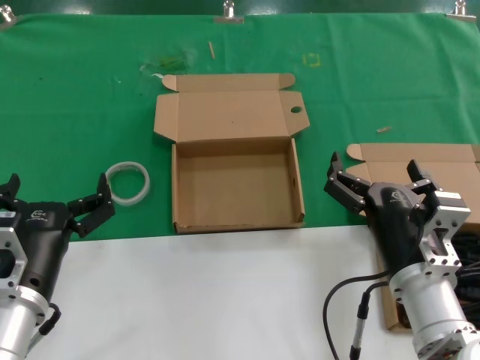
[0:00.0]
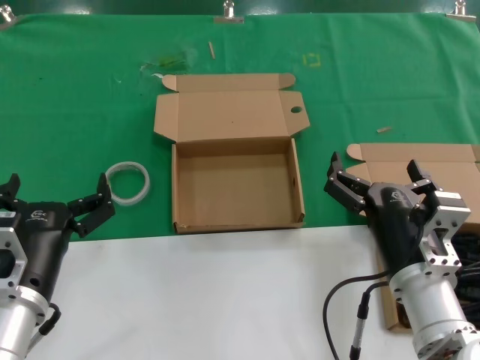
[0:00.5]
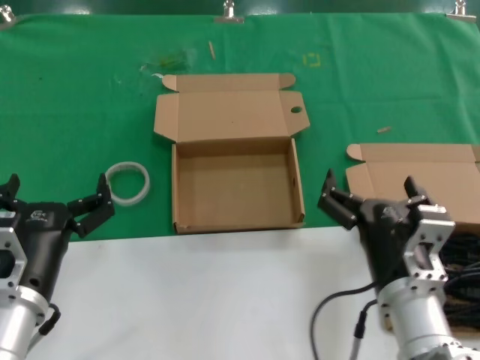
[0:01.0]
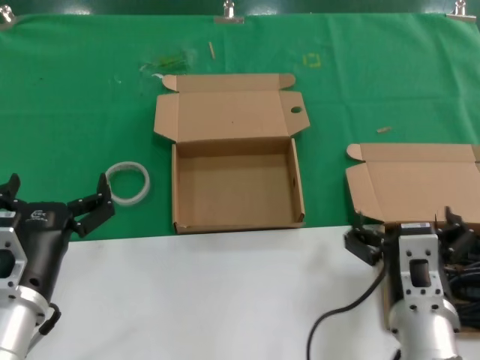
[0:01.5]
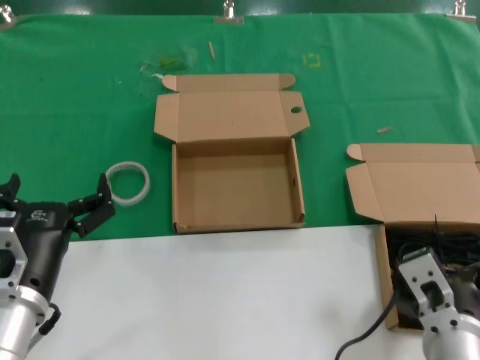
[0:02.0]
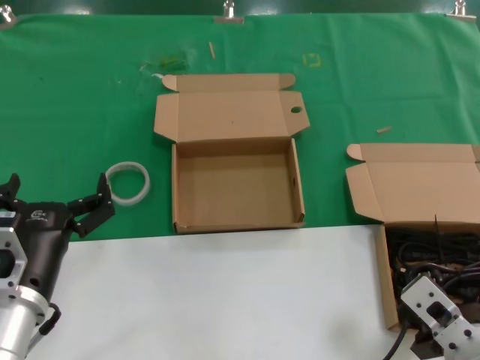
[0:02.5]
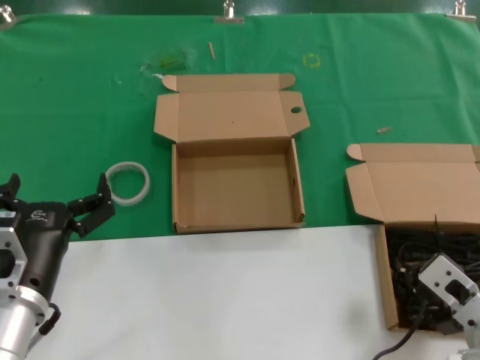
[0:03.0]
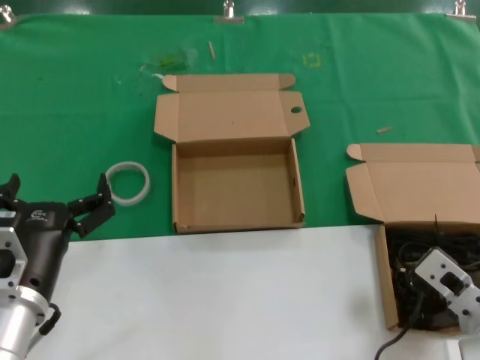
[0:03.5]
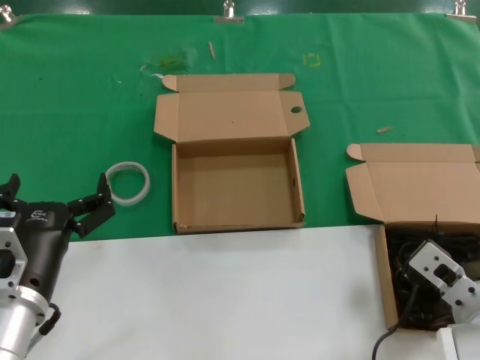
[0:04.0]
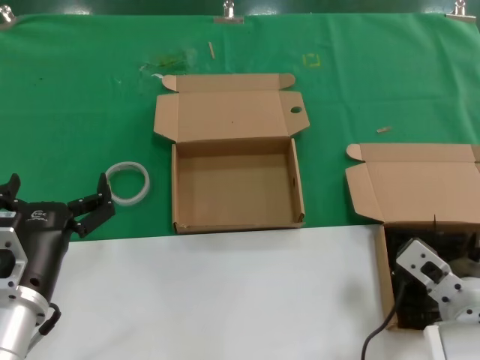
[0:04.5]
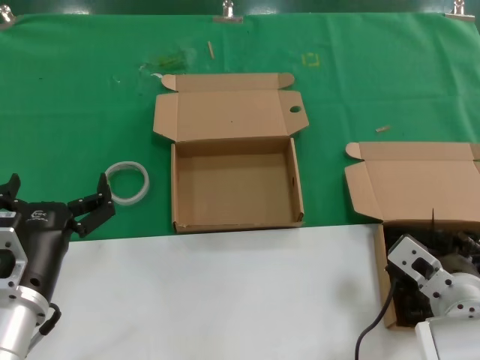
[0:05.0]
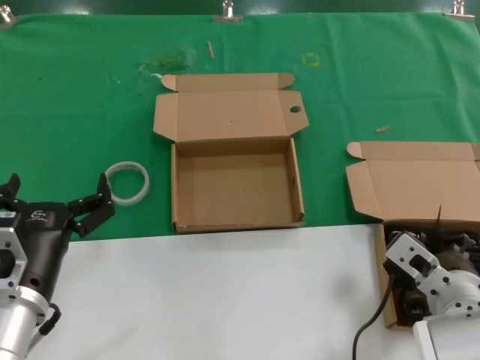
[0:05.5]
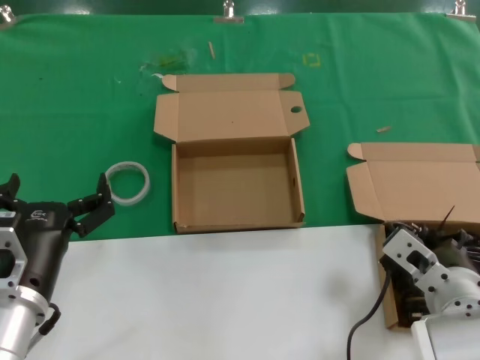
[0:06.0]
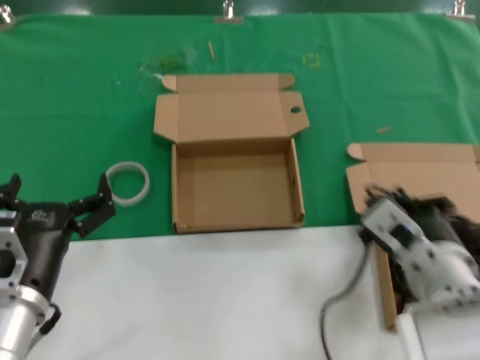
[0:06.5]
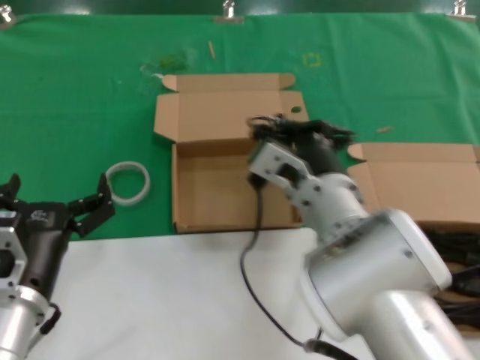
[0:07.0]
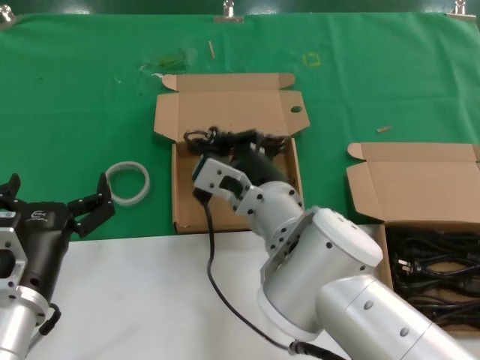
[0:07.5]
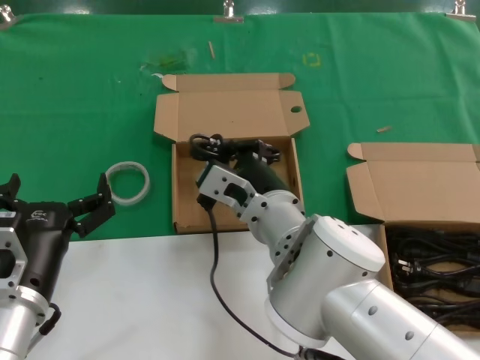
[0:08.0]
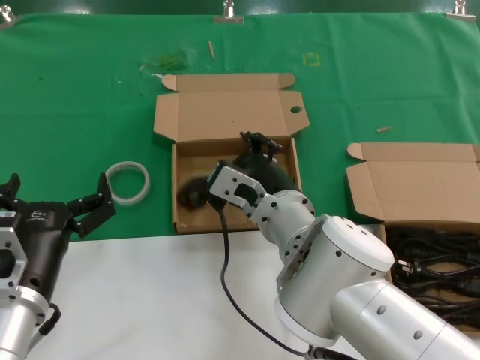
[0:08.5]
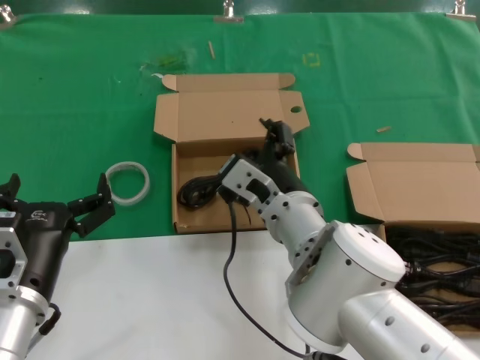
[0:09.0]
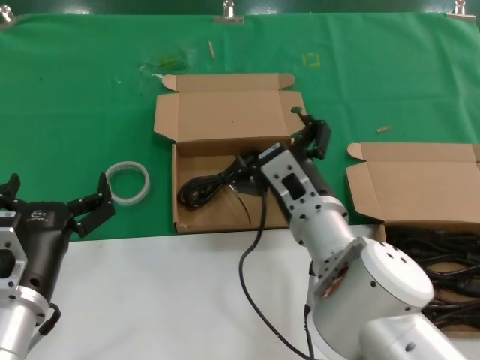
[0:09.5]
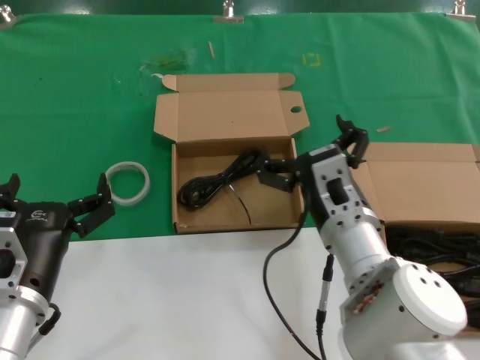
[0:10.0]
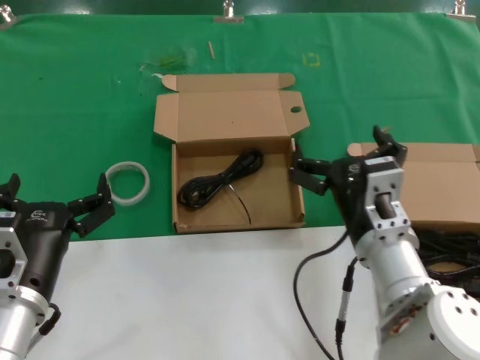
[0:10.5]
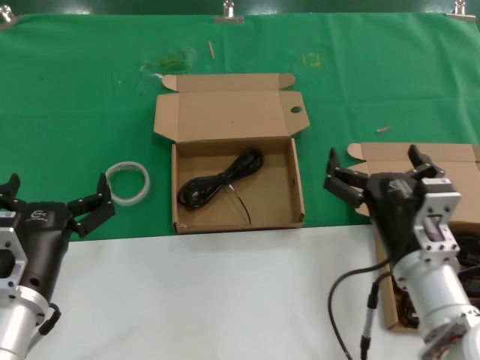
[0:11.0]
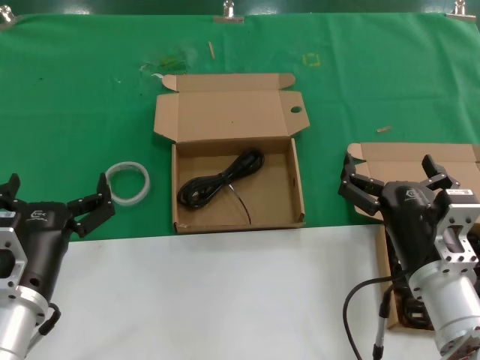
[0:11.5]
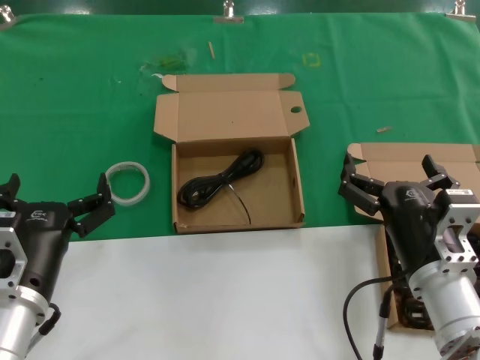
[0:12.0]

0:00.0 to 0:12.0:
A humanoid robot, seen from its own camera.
Task of the whole recording: take the parts from the box containing them and put them into an empty box.
Step, 0:00.0 to 0:06.0: Grasp the data cable.
Step, 0:06.5 to 0:09.5: Place the data cable in the another box.
0:00.0 to 0:02.0: The right hand travels backward by some 5 cm.
0:02.0 to 0:04.0: The right hand travels to the right and forward by some 10 cm.
0:04.0 to 0:06.0: The hands move only a little.
0:06.0 to 0:08.0: The right hand goes some 20 cm to the left and forward.
0:08.0 to 0:10.0: The right hand is displaced to the right by some 10 cm.
0:10.0 to 0:12.0: The right hand shifts about 10 cm to the right and backward.

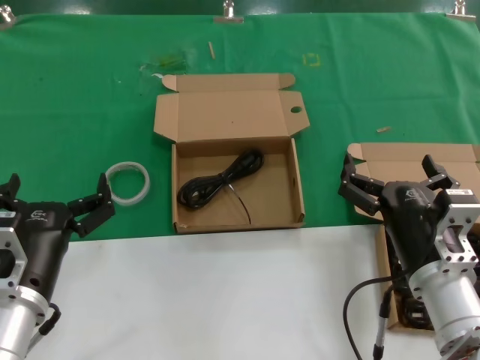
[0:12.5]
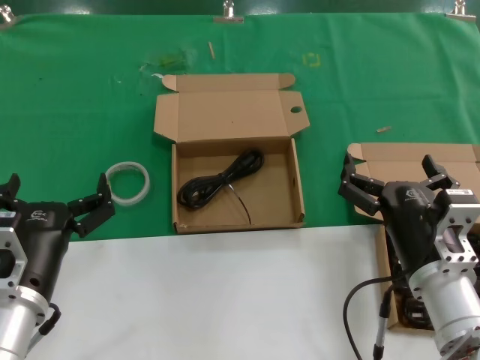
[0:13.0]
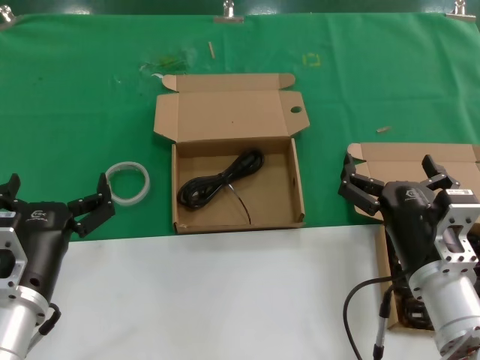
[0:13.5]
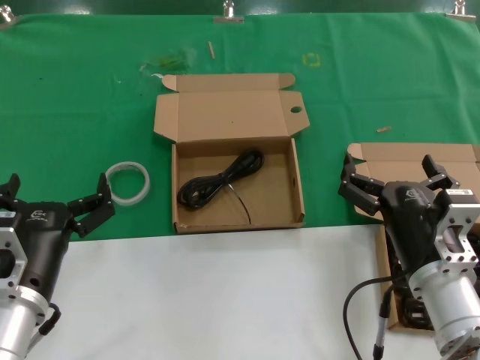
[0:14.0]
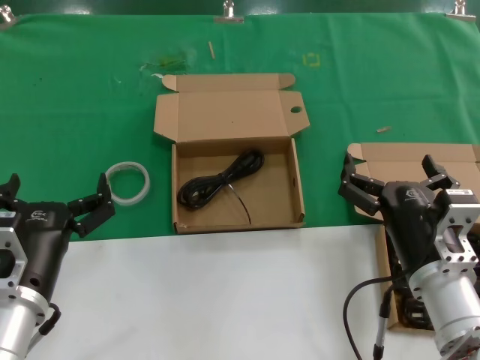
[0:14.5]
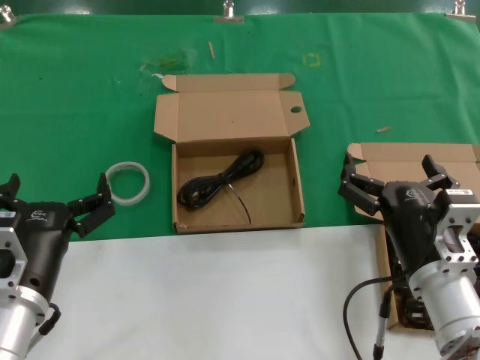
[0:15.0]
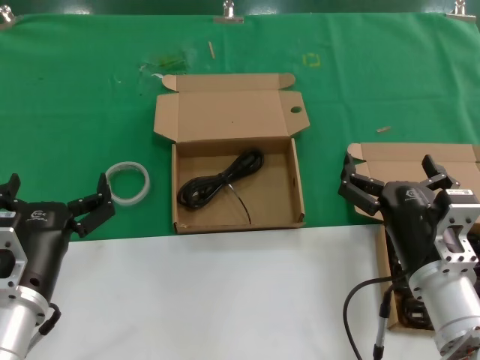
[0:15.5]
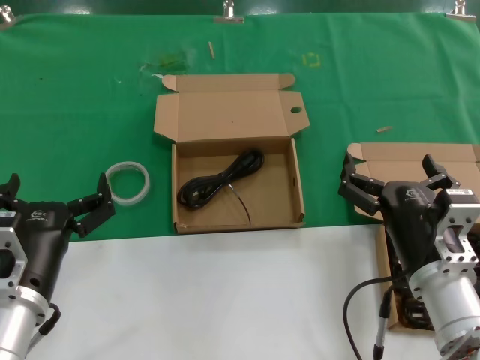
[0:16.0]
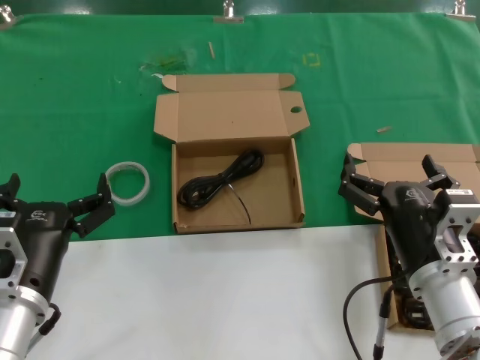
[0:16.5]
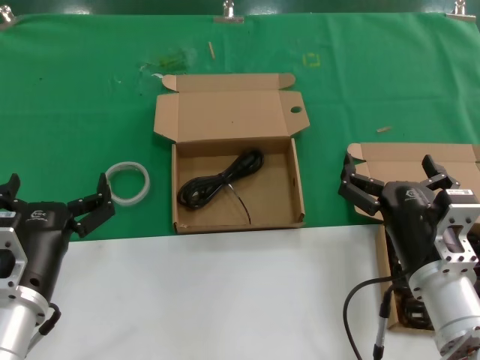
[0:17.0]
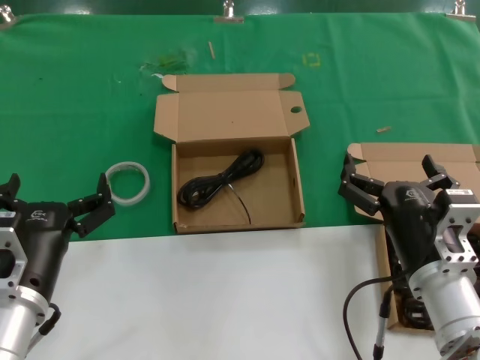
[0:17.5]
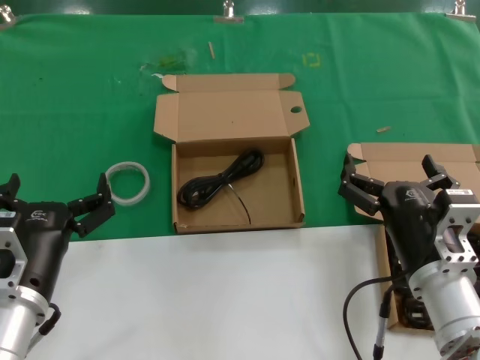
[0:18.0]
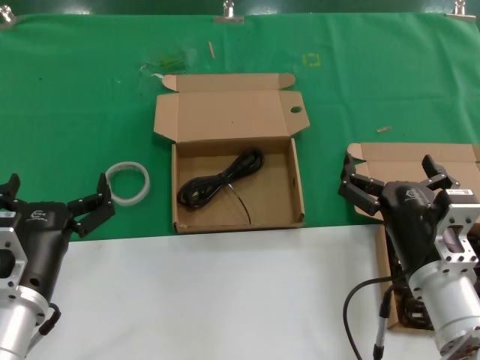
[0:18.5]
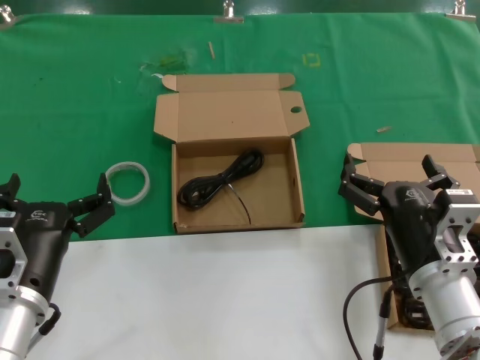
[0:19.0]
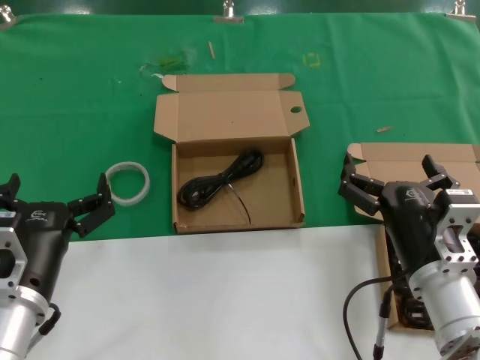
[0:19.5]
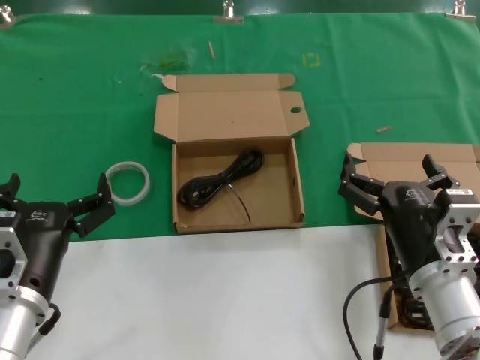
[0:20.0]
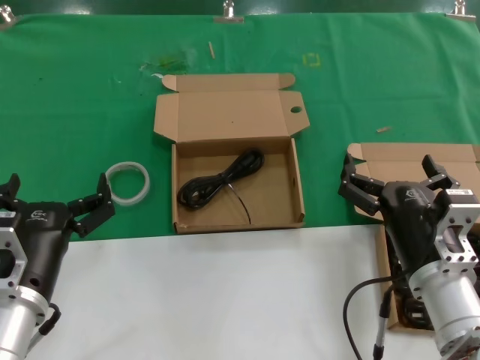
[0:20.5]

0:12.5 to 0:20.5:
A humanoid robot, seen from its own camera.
Task of the whole recording: take the parts from the box containing them and put them into an empty box.
0:12.5 to 0:20.5: The two hands keep their place.

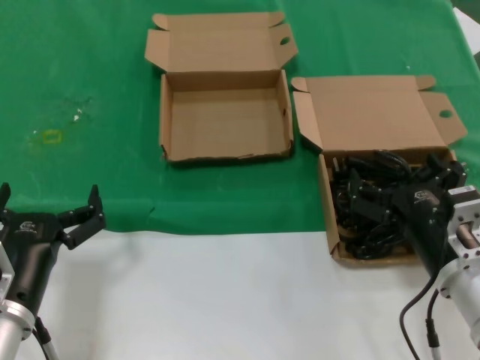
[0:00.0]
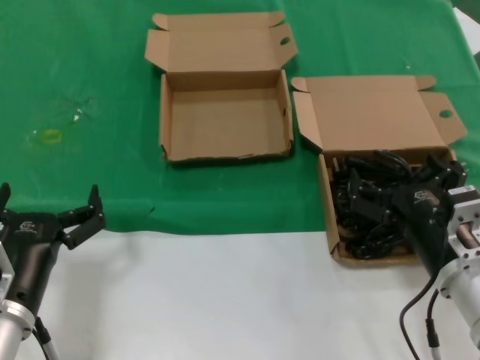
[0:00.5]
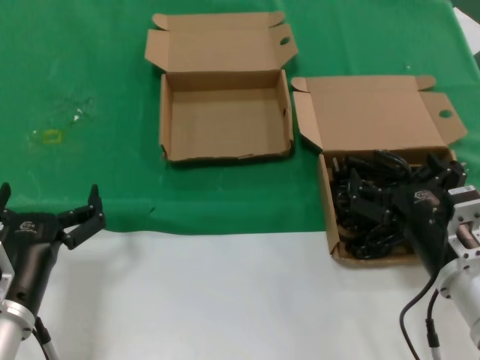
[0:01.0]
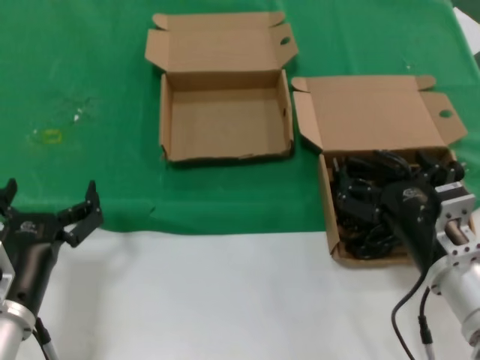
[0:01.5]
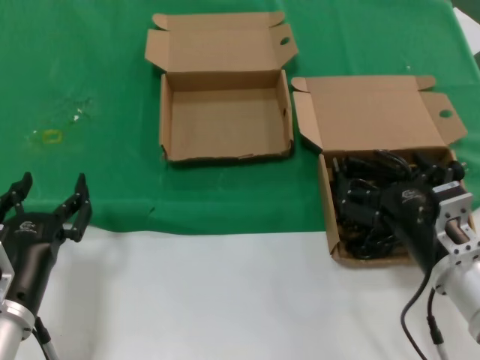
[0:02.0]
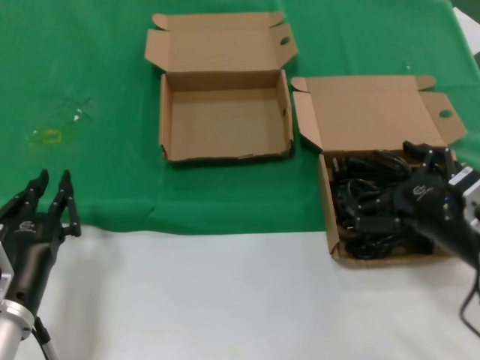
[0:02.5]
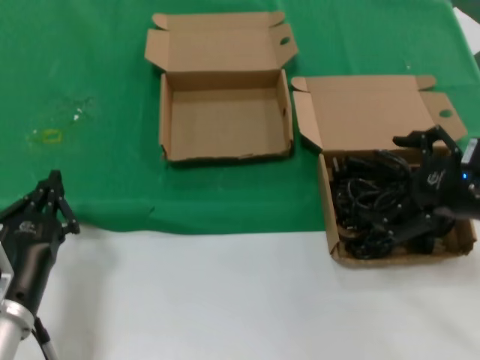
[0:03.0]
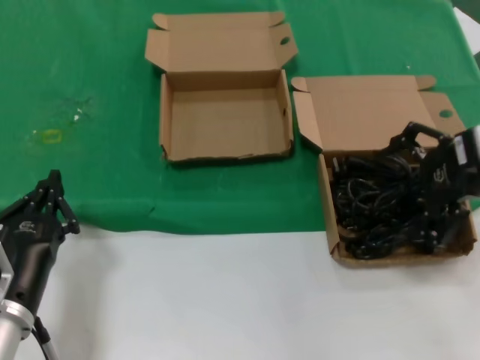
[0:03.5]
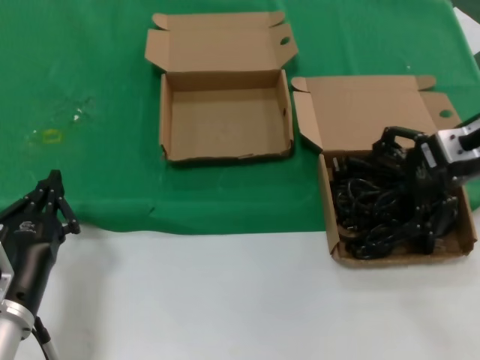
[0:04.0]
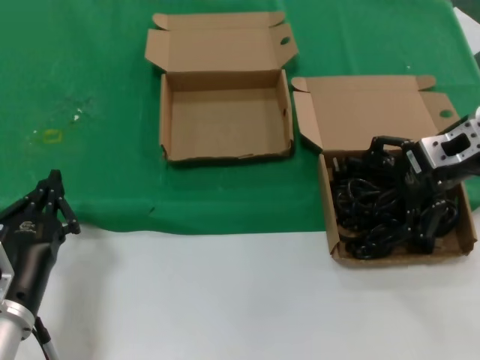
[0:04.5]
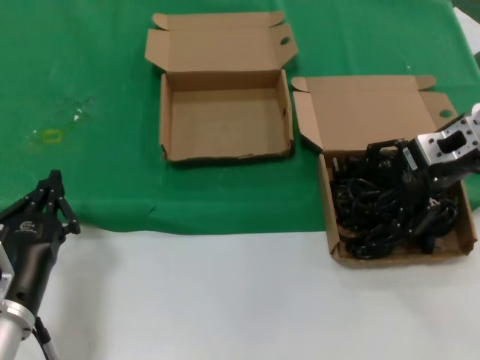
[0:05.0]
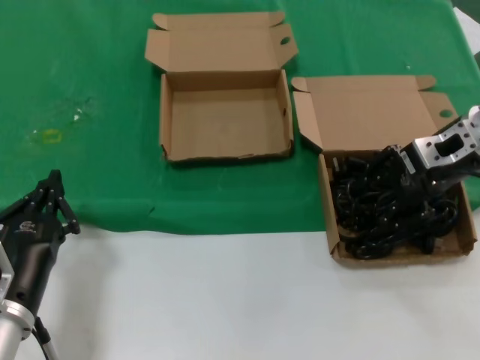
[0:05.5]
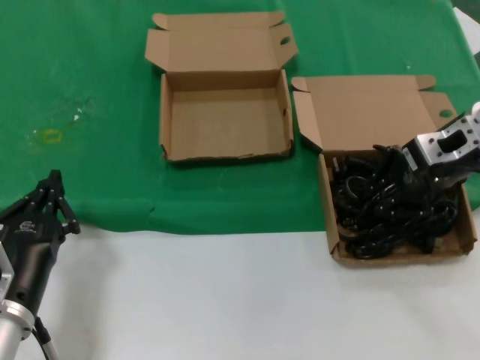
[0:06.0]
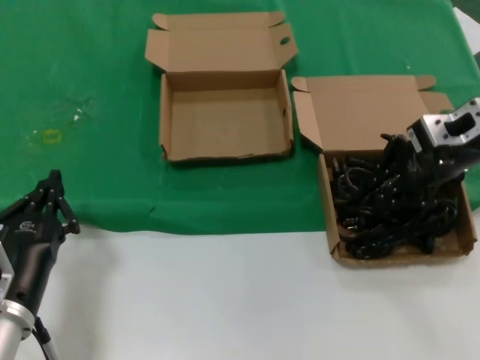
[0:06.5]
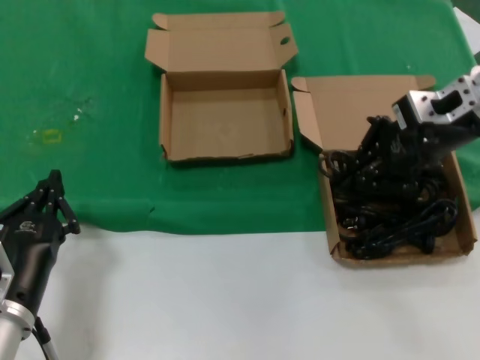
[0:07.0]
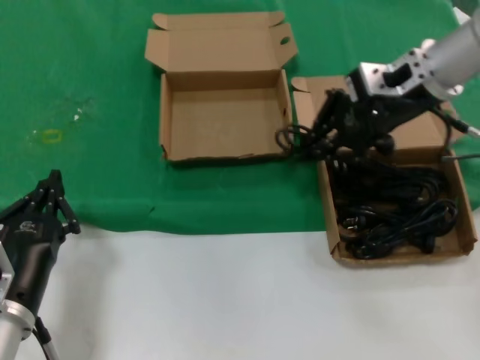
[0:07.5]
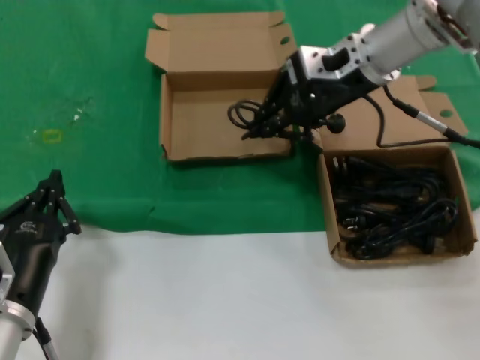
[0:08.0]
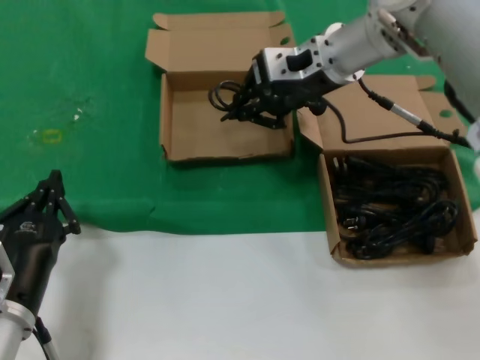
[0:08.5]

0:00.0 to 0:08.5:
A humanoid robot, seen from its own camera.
Task of the whole recording: take the parts from the box containing them and put them into an empty box.
Step, 0:00.0 to 0:06.0: Grasp the data cable.
0:00.0 to 0:02.0: Both hands stay about where they are.
0:02.0 to 0:04.0: The right hand goes approximately 25 cm upward, forward and to the right.
0:04.0 to 0:06.5: The hands stay close to where they were, moving slightly.
0:06.5 to 0:08.5: The right hand travels to the left and forward by approximately 20 cm.
